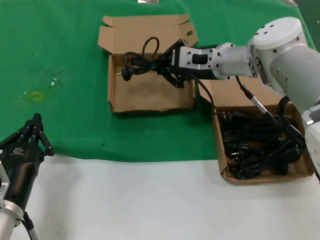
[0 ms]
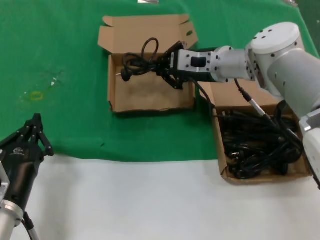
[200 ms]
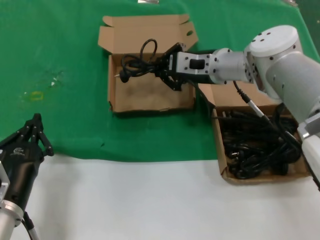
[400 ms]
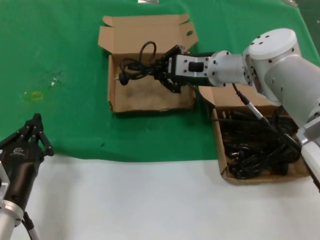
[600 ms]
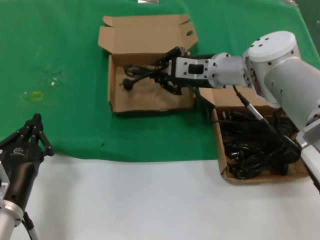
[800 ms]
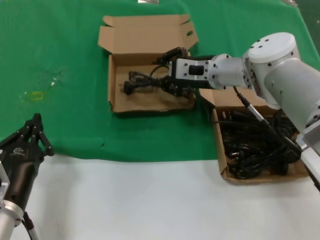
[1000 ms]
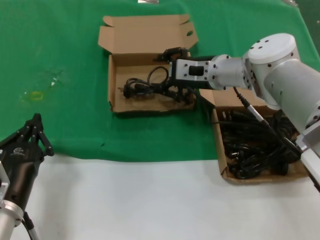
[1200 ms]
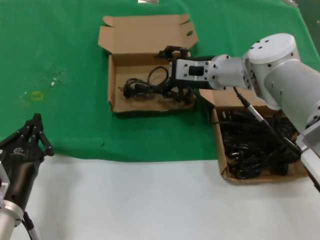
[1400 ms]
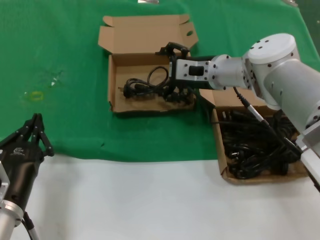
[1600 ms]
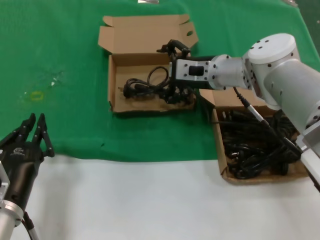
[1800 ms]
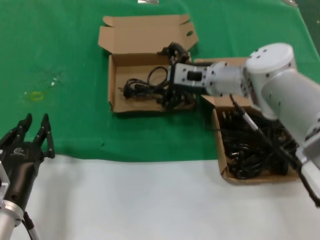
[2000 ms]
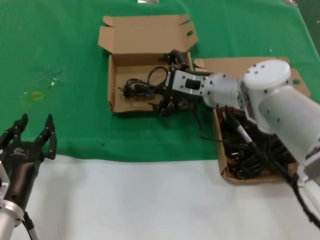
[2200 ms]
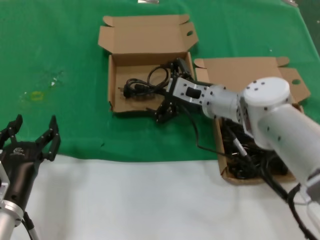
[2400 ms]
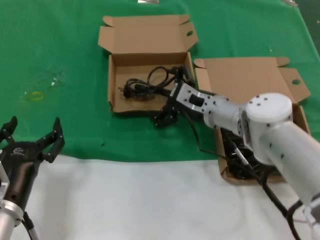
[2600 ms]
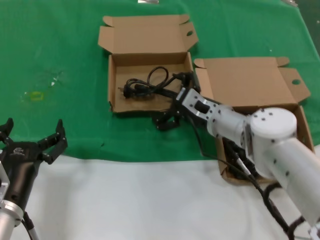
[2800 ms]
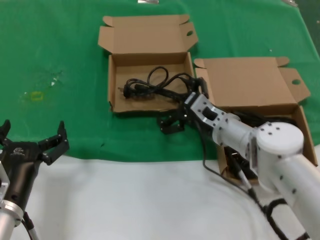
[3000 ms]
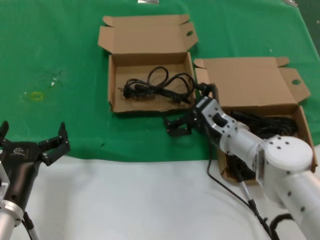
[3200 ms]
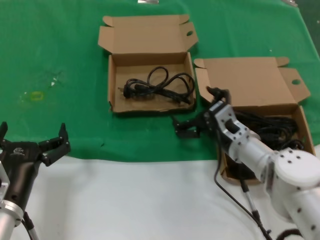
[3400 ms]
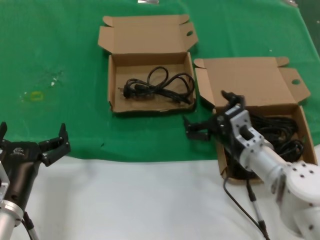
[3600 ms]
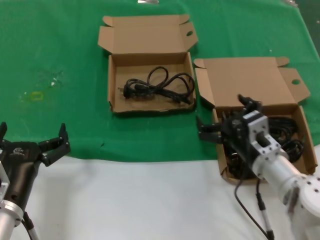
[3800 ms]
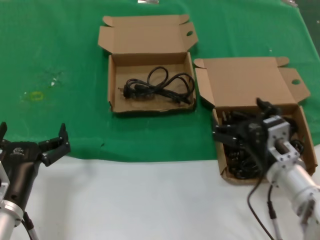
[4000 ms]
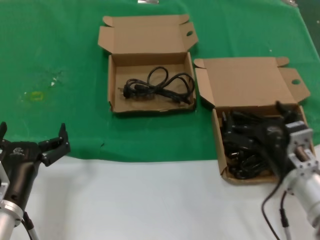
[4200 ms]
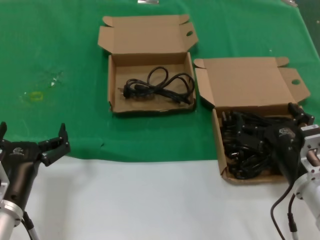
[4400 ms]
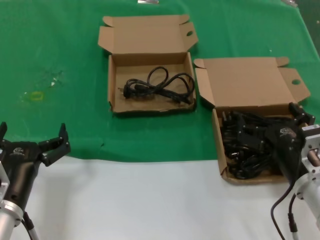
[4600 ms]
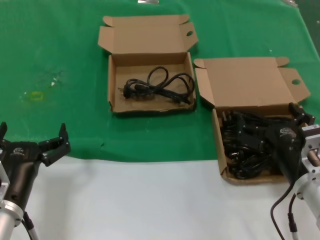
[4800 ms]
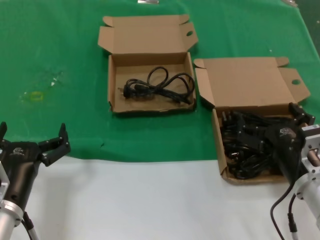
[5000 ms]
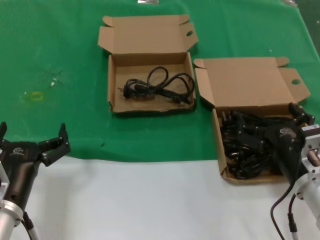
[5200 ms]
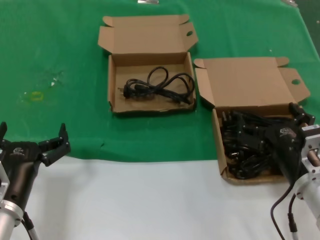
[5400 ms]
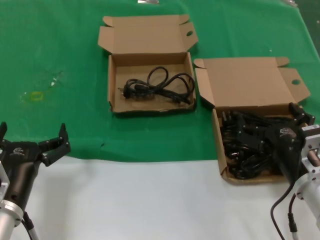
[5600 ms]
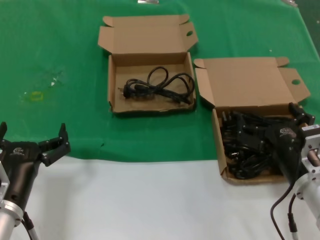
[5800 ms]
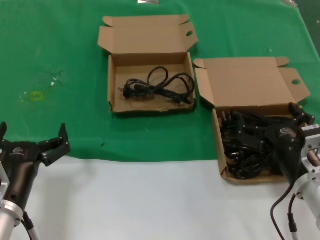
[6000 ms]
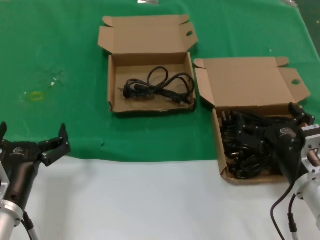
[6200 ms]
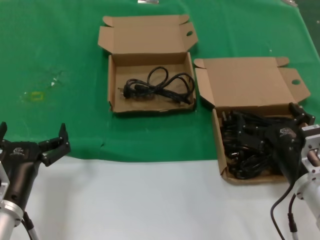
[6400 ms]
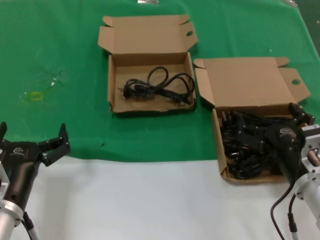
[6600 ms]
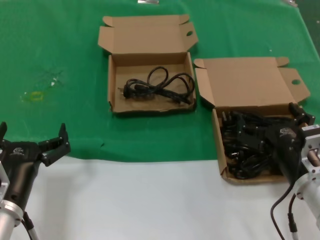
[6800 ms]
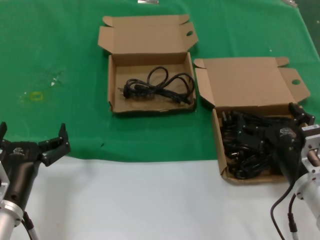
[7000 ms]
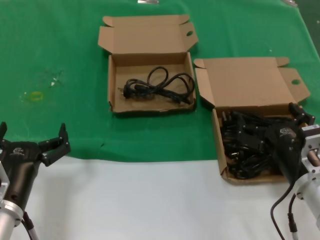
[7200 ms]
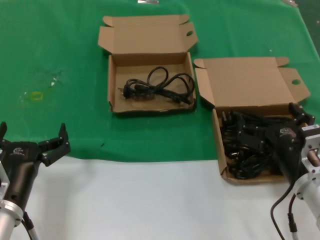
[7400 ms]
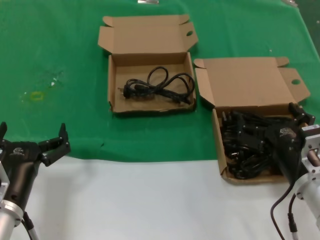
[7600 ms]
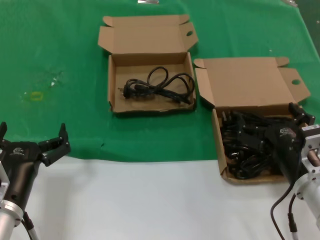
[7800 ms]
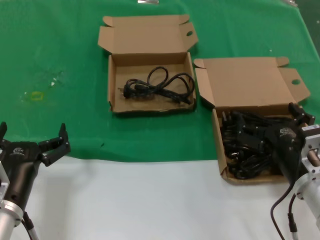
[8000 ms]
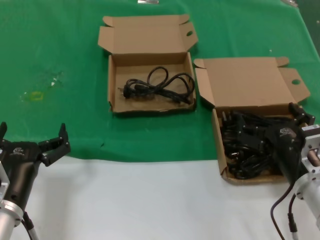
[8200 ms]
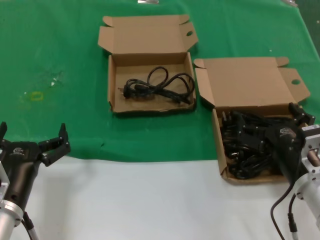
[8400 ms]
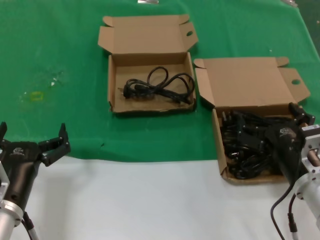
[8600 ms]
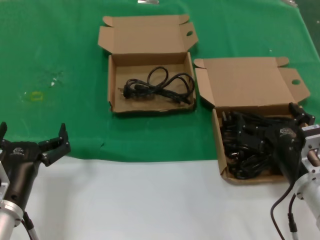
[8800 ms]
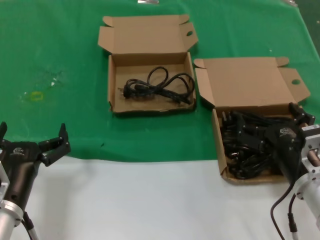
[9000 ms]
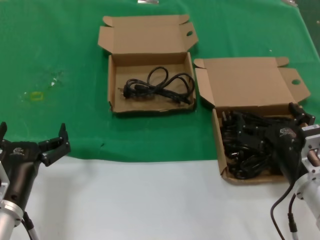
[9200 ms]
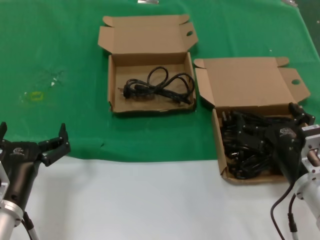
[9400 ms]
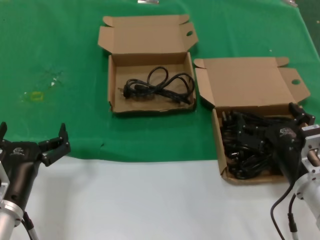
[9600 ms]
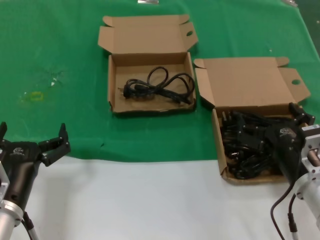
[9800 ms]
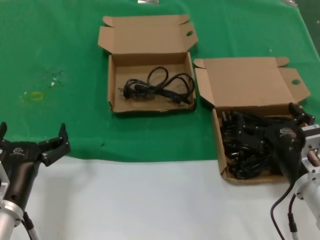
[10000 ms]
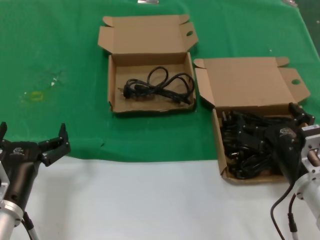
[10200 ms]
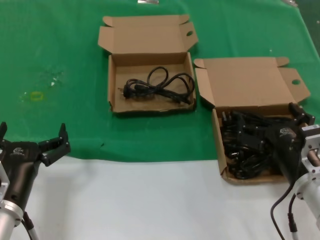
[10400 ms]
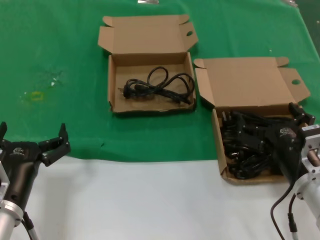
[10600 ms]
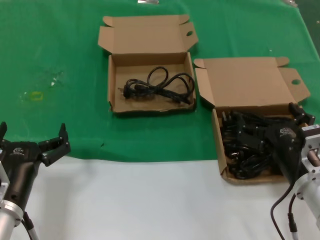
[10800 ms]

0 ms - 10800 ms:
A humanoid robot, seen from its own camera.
Task of the whole recording: take the parts from the box containing them and put them into an empty box.
0 ms - 1600 ms: The hands move only a little.
1600 ms - 3000 ms: The right hand shifts some 15 cm downward and backward.
3000 ms - 4600 ms: The right hand goes about 20 cm backward and to the right.
4600 ms - 10800 ms: The two hands keep their place.

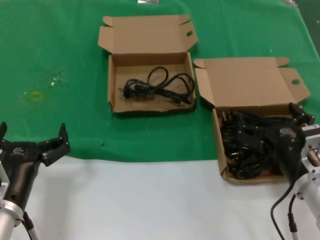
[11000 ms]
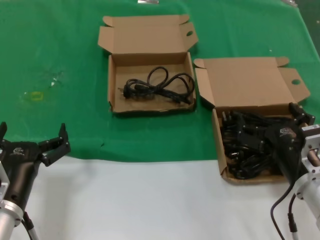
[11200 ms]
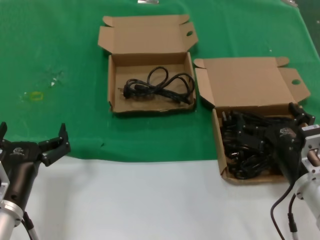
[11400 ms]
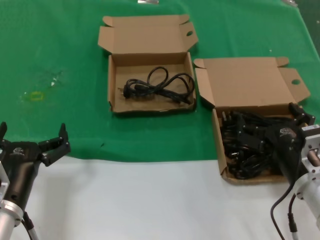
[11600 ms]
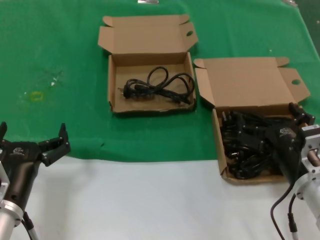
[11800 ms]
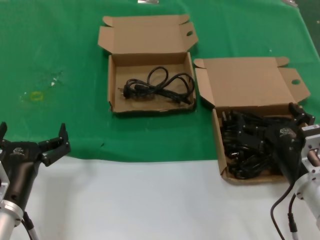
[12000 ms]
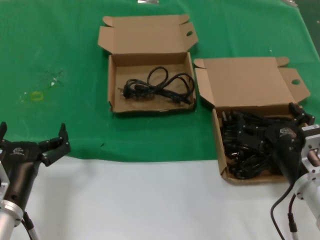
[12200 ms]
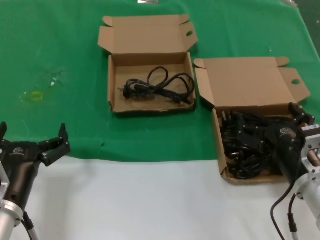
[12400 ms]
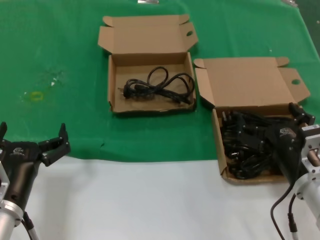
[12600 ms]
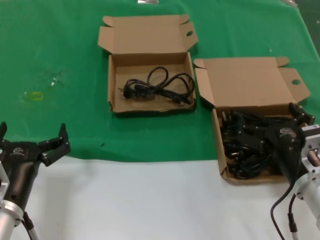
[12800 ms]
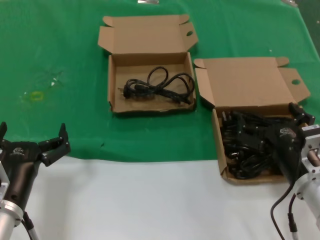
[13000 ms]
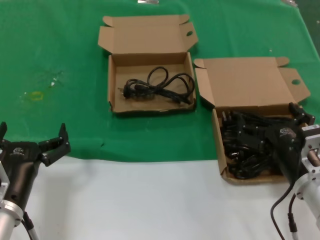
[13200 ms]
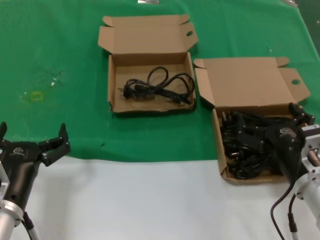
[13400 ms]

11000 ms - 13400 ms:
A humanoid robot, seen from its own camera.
Task of the whole recording: take the parts from the box containing them and put them into an empty box.
11000 ms - 13400 ms: Both hands stay put.

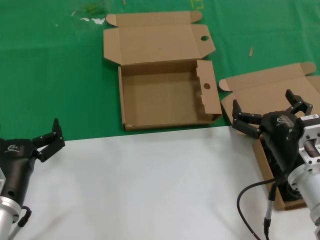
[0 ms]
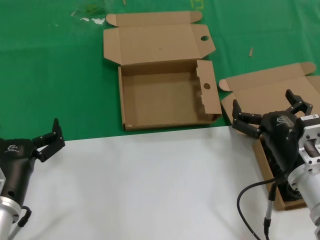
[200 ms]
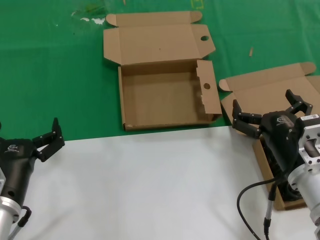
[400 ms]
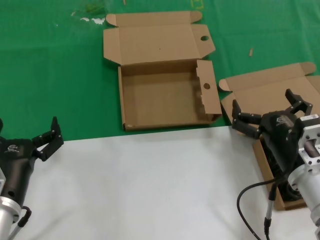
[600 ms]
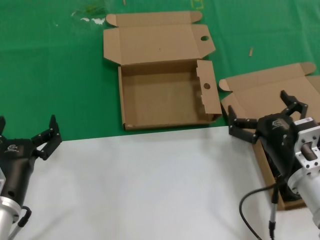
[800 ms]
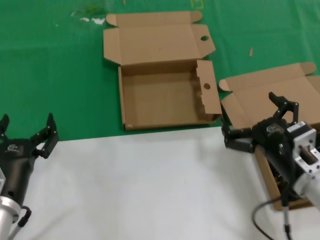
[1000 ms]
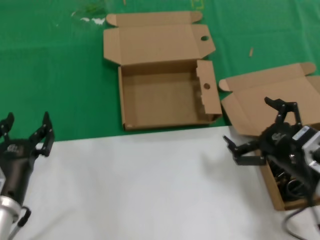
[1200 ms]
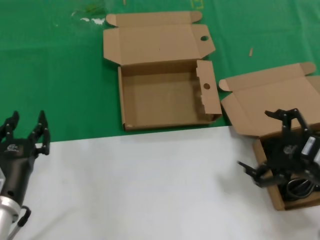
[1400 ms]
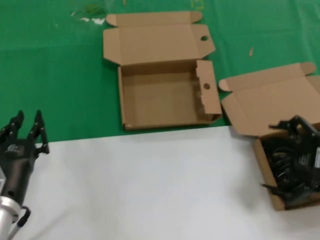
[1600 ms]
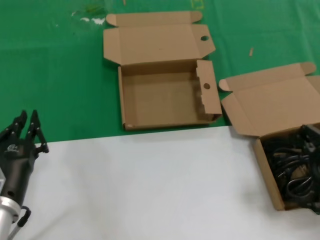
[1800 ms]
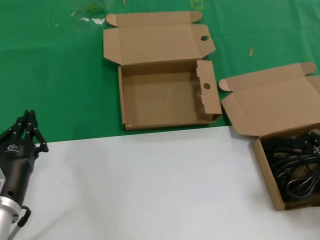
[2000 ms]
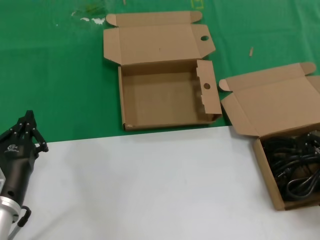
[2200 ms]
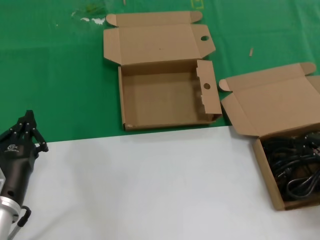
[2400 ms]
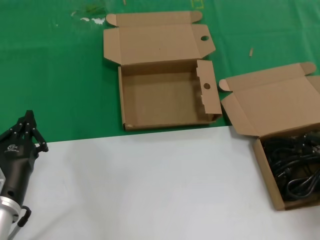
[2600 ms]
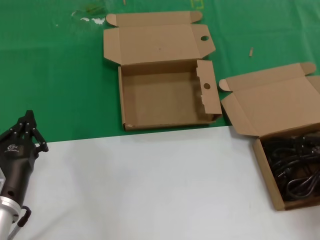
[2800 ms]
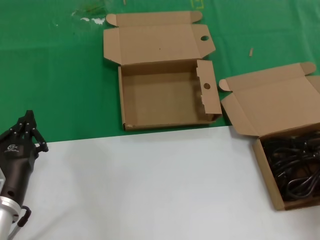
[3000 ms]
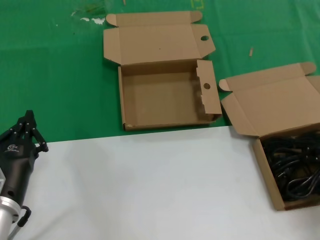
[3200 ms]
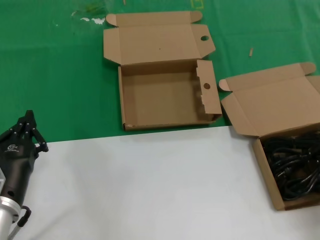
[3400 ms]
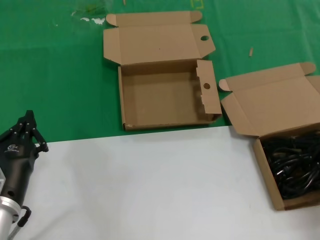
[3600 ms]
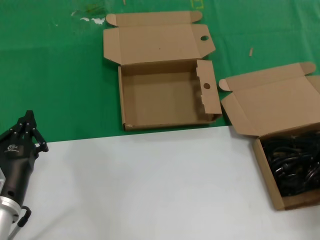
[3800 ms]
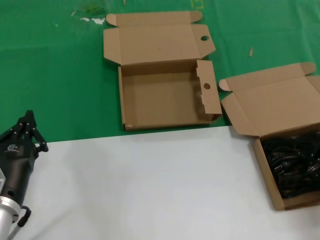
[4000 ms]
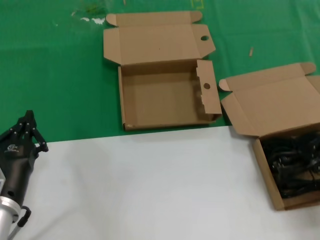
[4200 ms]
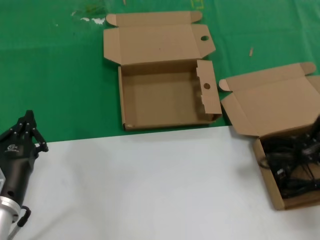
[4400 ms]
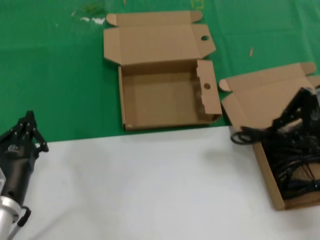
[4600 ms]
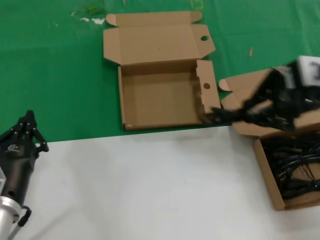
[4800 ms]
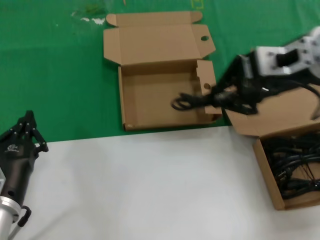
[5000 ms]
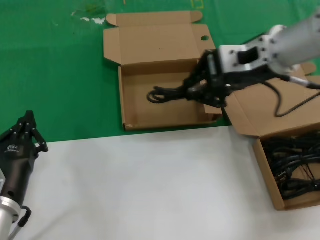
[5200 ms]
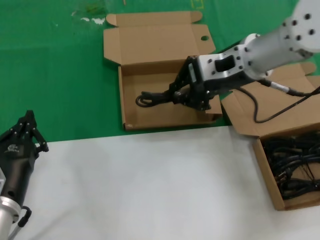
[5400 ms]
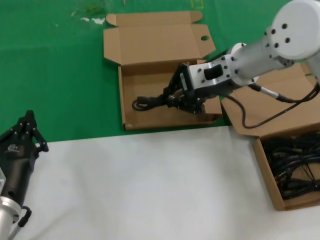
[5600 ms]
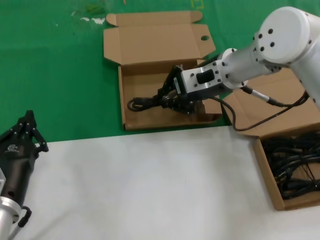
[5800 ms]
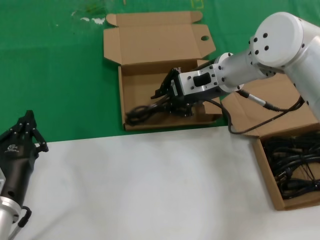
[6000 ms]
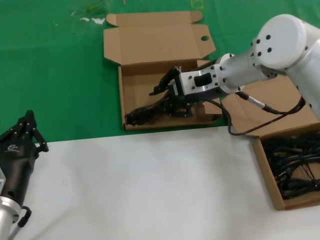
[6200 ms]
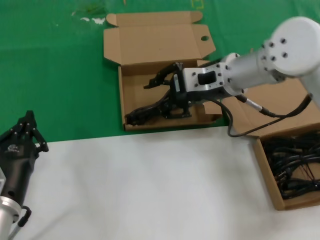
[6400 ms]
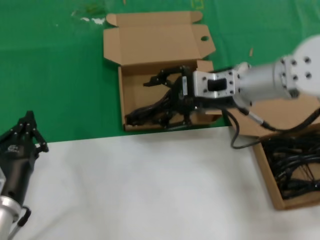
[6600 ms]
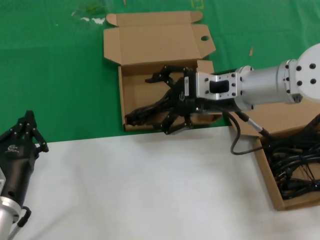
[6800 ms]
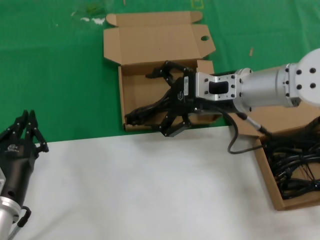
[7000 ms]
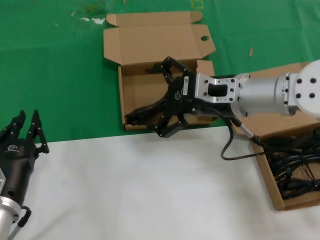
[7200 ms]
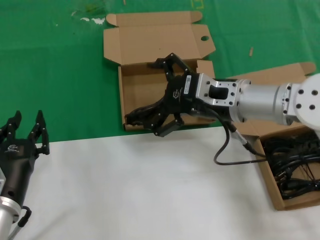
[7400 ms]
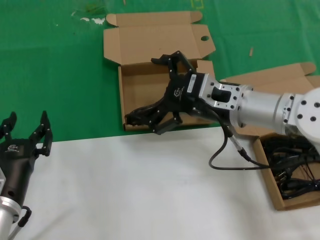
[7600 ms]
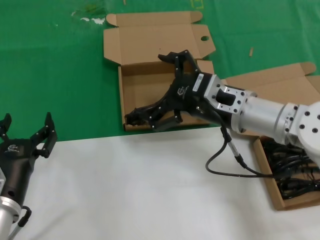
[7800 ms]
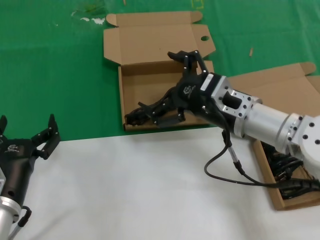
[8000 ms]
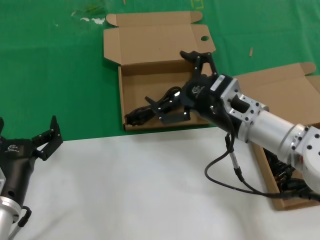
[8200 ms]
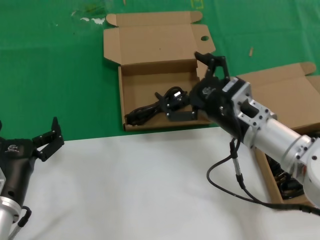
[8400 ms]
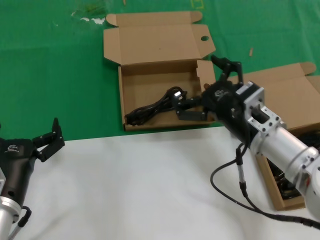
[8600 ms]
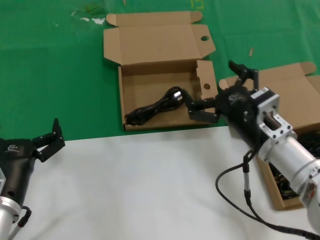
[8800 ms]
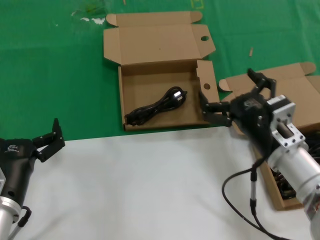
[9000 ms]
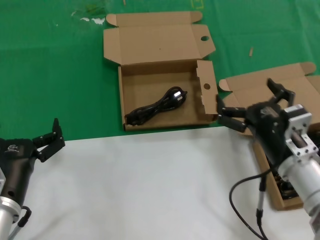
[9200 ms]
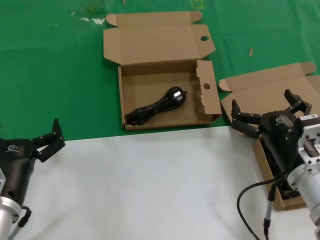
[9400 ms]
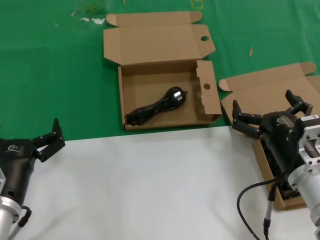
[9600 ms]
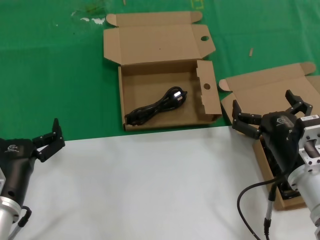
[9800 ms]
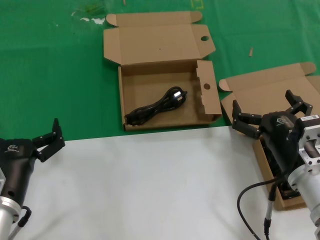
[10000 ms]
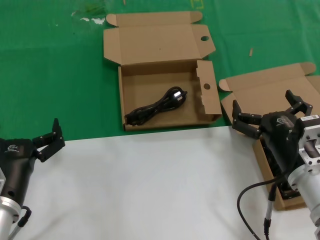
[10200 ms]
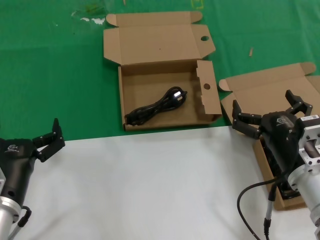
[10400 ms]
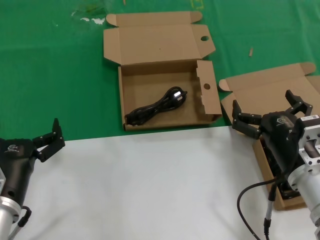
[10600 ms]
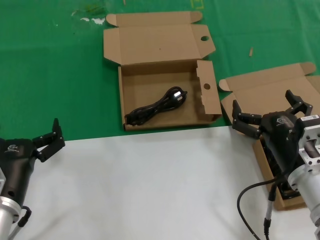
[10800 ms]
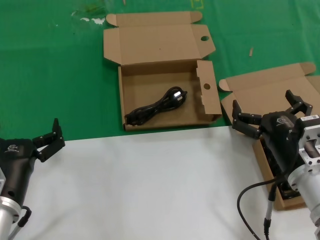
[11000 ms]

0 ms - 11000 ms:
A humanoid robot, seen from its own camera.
Task of the whole recording: take the parts from the box containing them and put them into an empty box.
Step, 0 ms - 3200 ms: Grasp the data cable.
Step, 3400 ms - 6400 ms: Place the data cable in the another box.
0 ms - 1600 ms: The right hand travels to the right and upward by about 15 cm.
1600 ms - 3200 ms: The right hand moves forward and to the right, about 10 cm.
3200 ms - 4800 ms: The right hand travels upward and to the left by some 20 cm.
4800 ms - 6200 ms: The right hand is displaced forward, to the left and downward by some 25 cm.
6200 ms - 7800 ms: The right hand moves backward and downward, about 10 cm.
7800 ms - 9400 ms: The right hand moves downward, backward and to the right, approximately 15 cm.
9400 ms - 11000 ms: Both hands stay put.
